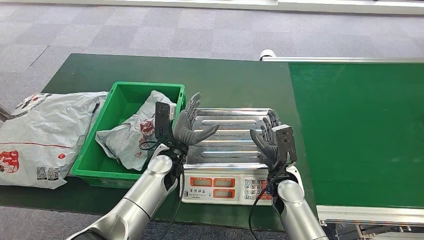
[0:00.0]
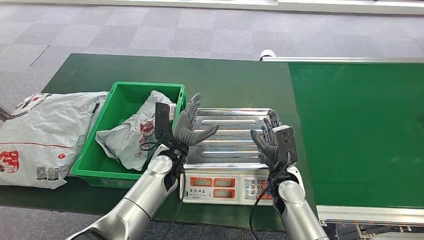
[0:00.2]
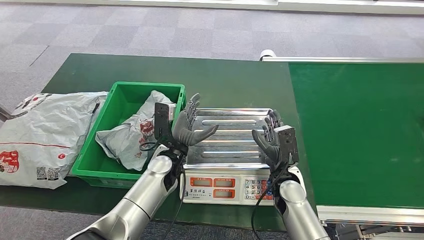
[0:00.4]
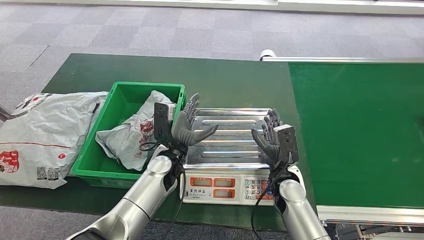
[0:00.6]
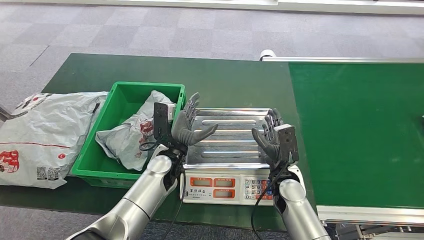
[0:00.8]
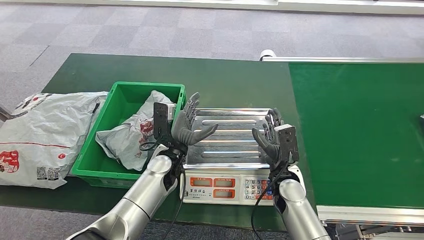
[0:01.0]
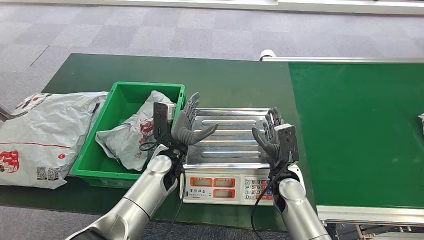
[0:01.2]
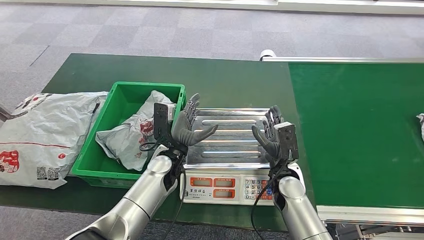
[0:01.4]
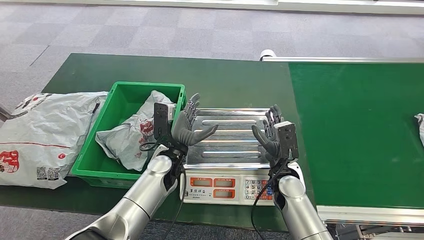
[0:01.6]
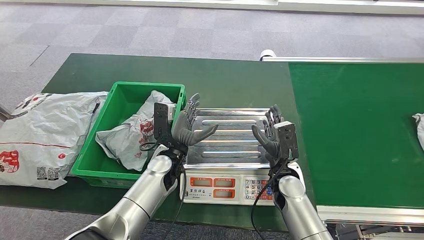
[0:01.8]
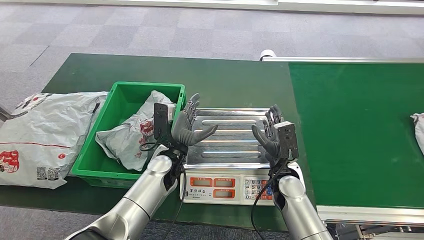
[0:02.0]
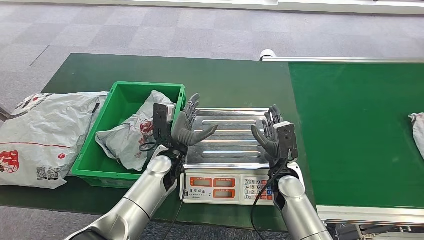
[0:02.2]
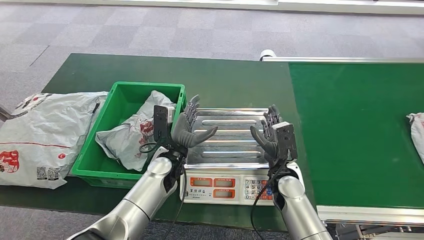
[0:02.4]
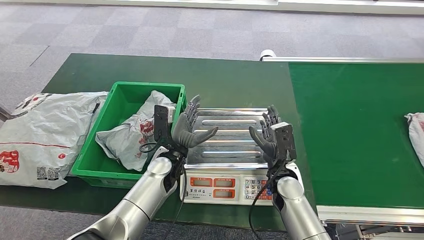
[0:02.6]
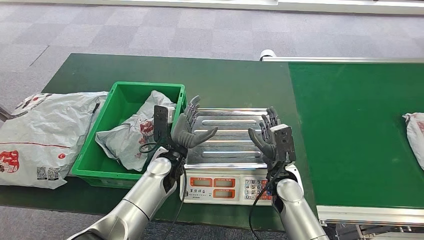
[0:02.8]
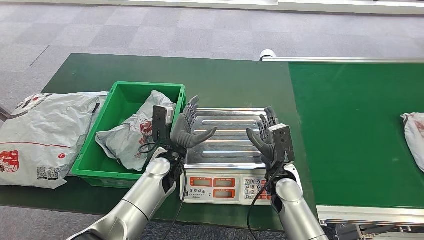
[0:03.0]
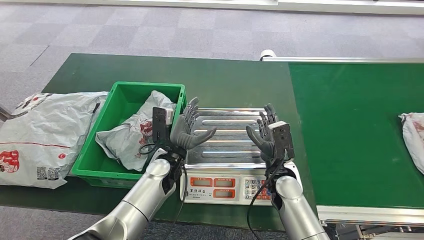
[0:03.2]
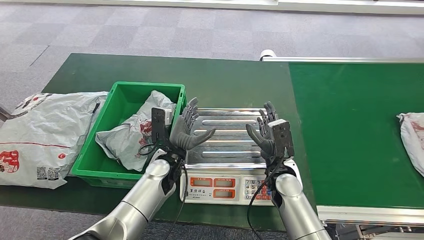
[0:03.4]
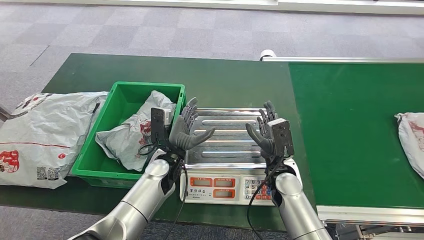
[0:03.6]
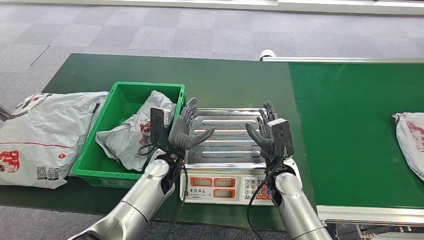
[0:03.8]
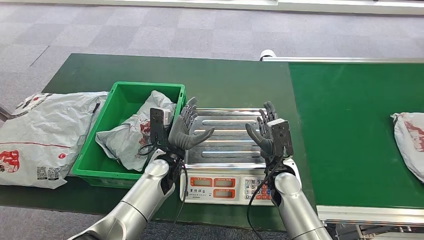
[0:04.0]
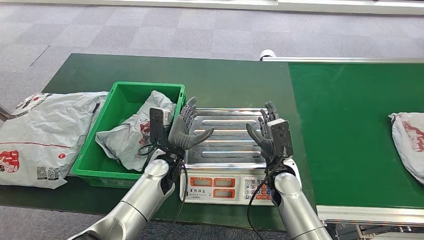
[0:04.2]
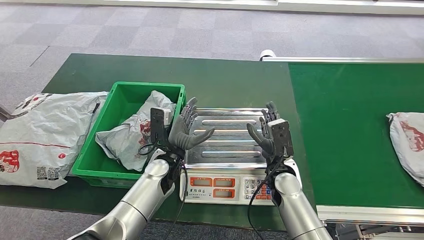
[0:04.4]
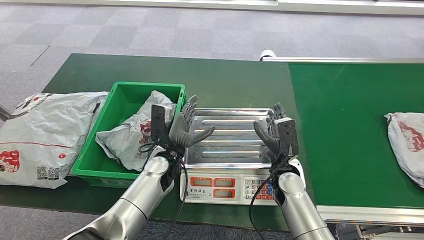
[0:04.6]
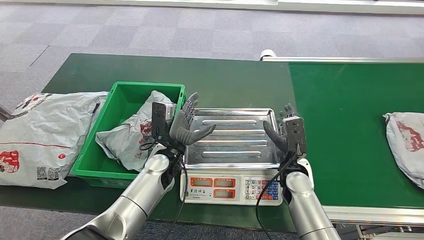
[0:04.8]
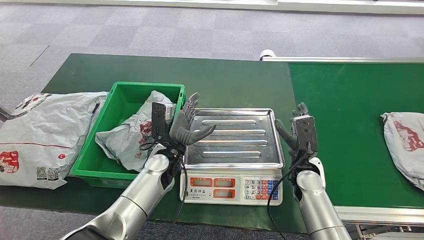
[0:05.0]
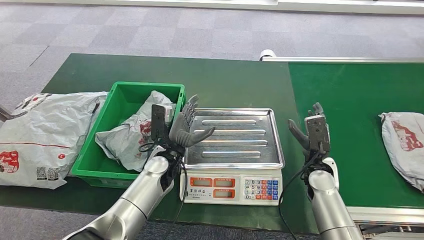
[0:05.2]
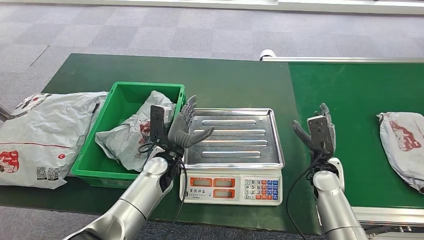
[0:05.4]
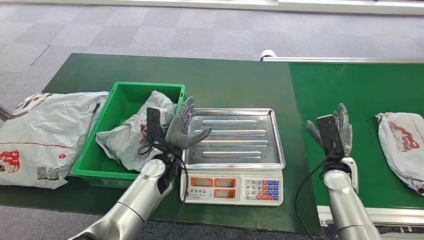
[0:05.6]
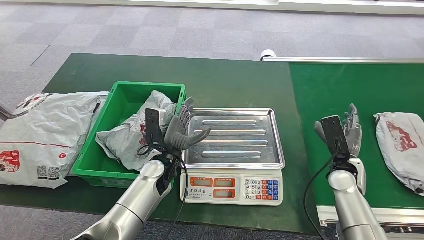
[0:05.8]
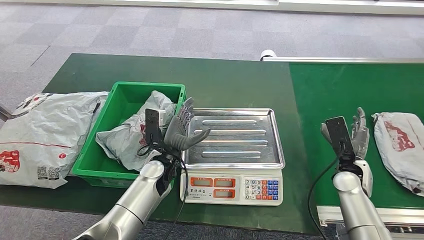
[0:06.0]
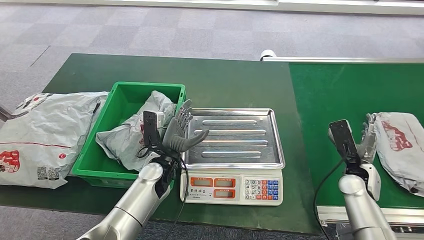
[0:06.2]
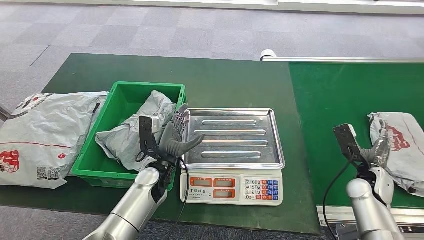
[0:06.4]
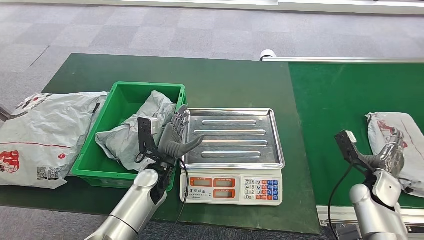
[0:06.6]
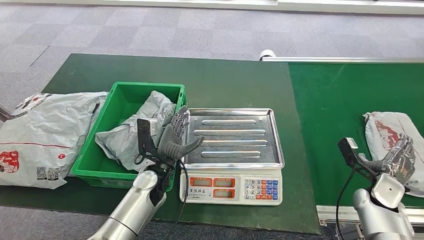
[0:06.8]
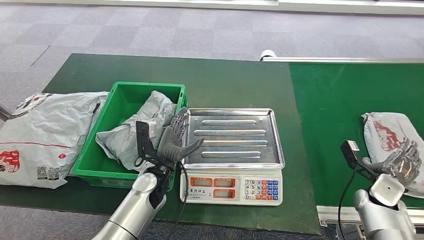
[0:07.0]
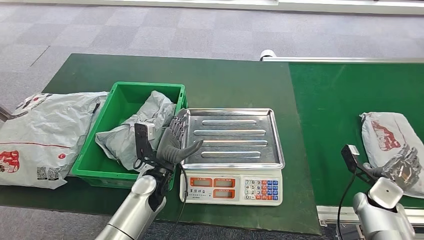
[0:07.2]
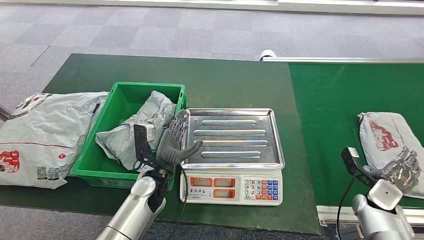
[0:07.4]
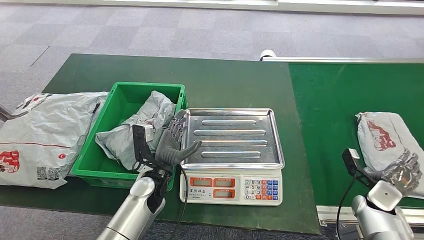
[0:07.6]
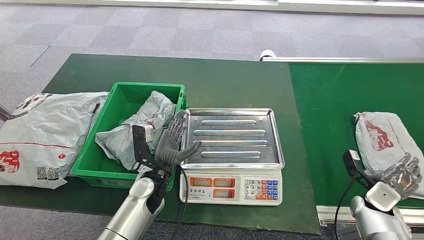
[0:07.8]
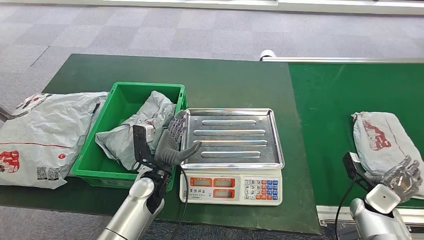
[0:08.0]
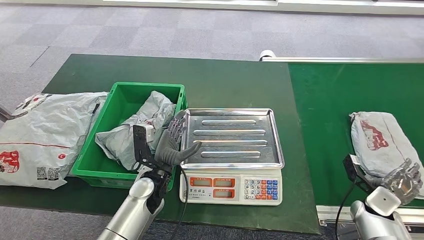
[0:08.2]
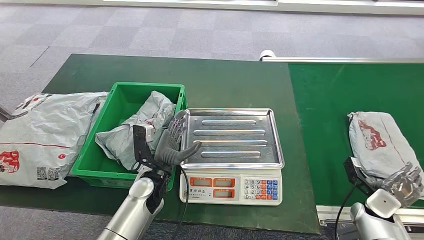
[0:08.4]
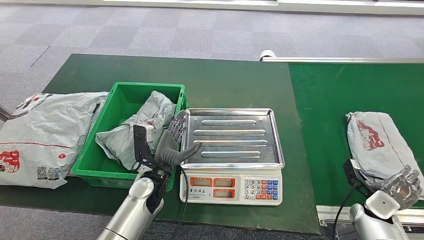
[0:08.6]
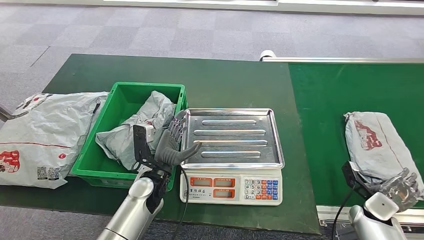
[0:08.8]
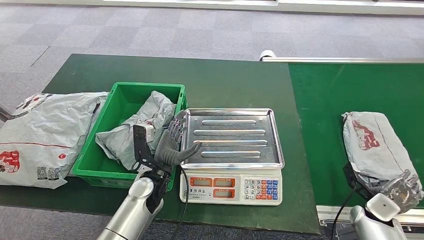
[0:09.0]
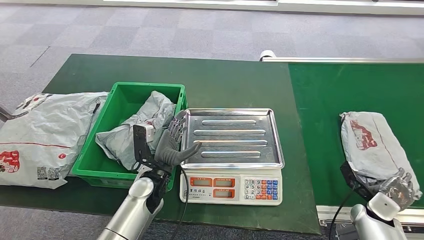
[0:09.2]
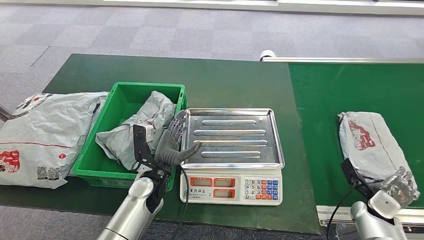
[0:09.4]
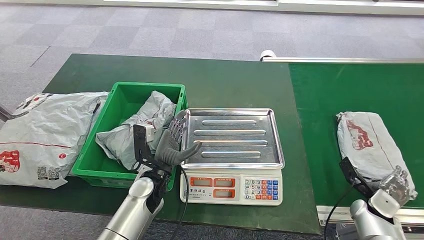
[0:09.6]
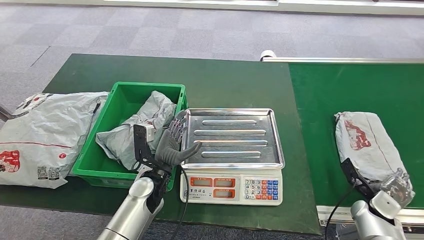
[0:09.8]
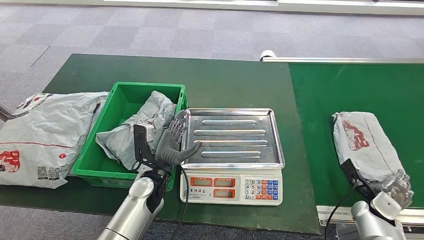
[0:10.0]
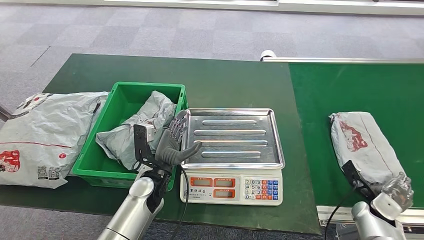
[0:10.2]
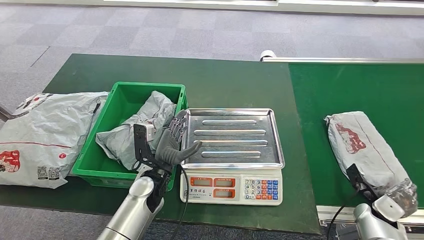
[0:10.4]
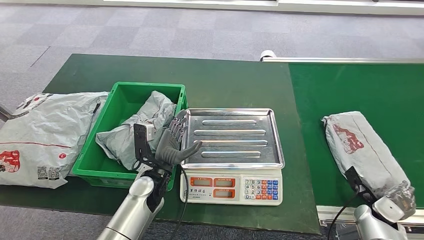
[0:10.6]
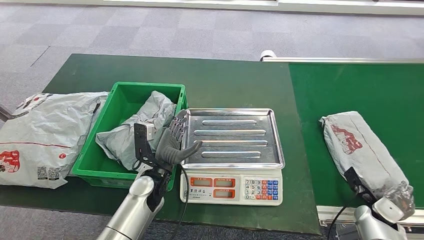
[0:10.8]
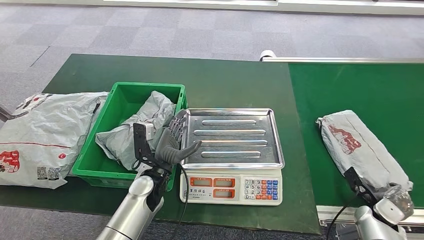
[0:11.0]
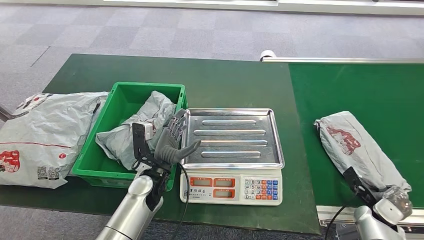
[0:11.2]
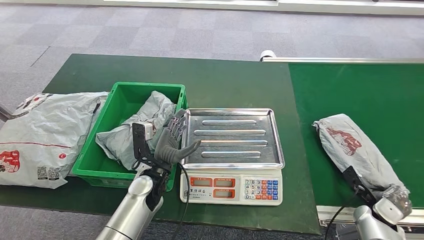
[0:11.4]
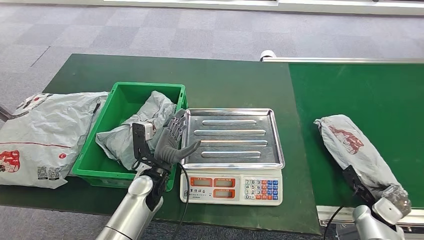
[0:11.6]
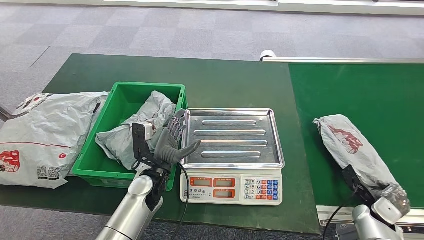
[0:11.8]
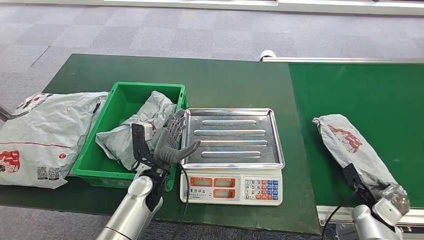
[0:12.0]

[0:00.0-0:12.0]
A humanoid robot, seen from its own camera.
0:00.0 to 0:03.0: Both hands stay about where they are.
0:03.0 to 0:04.4: The two hands keep their place.
0:04.4 to 0:06.0: The right hand shifts about 20 cm to the right.
0:06.0 to 0:07.6: The right hand goes some 10 cm to the right and downward.
0:07.6 to 0:10.4: The hands make only small movements.
0:10.4 to 0:12.0: The hands stay close to where they were, moving slightly.

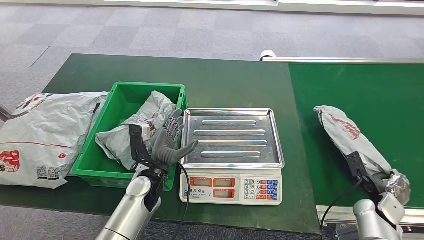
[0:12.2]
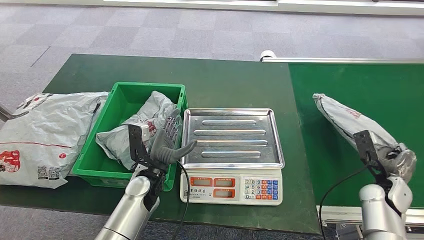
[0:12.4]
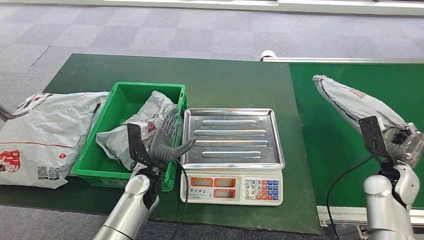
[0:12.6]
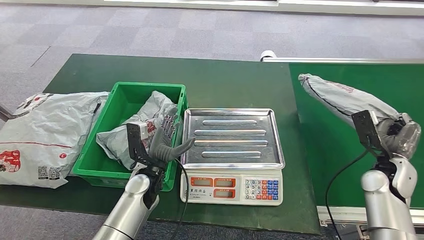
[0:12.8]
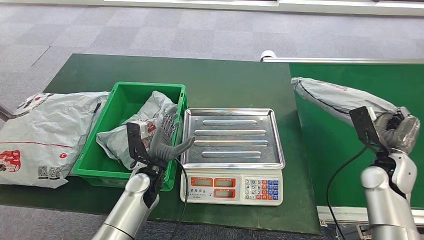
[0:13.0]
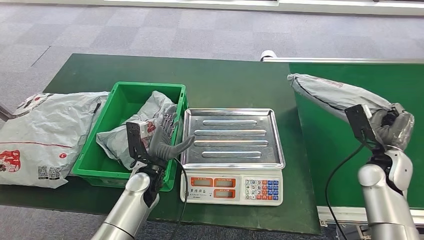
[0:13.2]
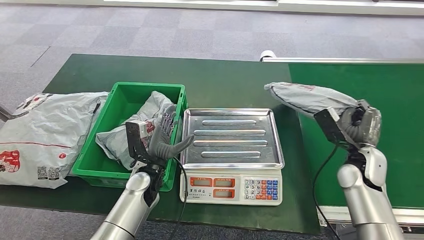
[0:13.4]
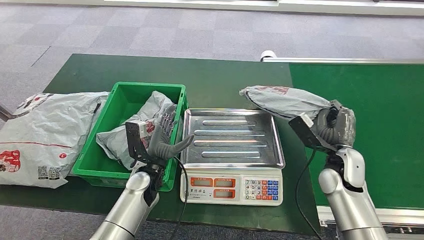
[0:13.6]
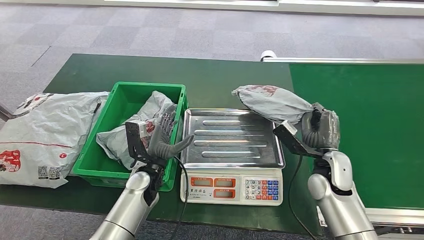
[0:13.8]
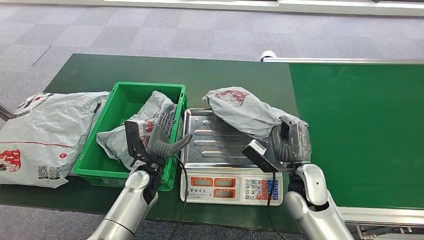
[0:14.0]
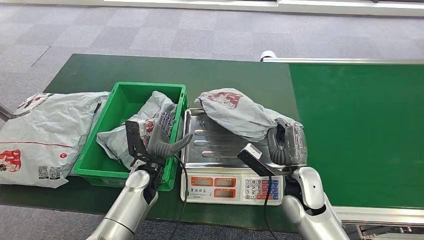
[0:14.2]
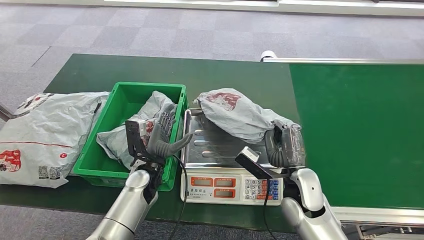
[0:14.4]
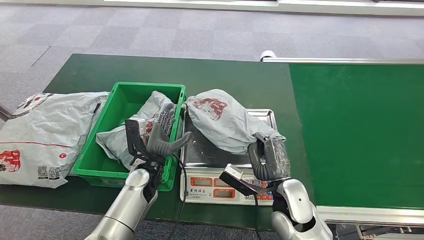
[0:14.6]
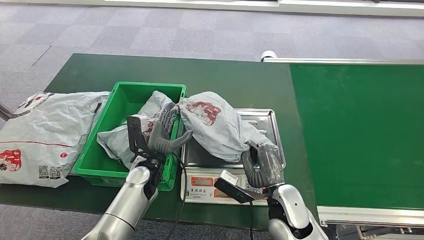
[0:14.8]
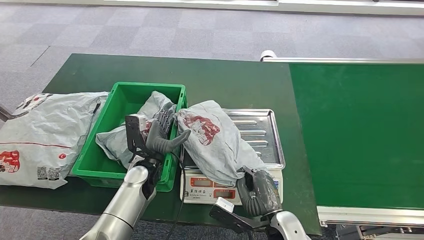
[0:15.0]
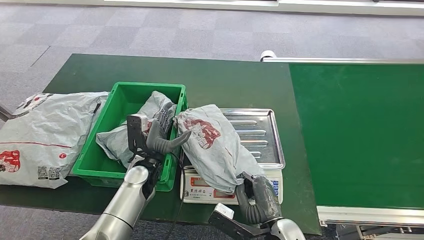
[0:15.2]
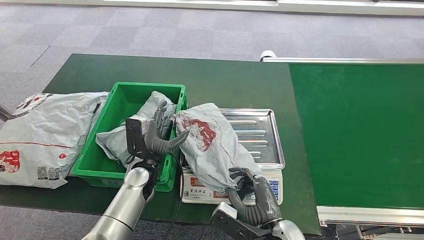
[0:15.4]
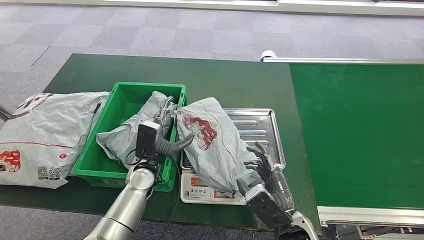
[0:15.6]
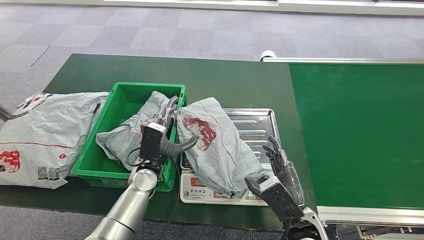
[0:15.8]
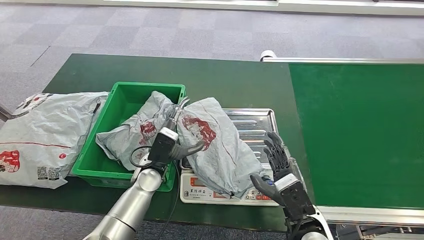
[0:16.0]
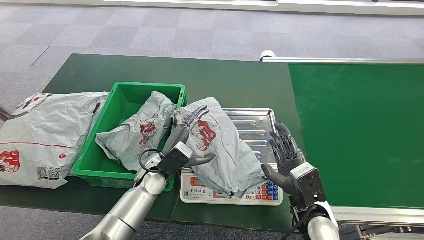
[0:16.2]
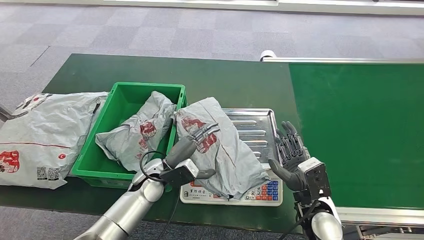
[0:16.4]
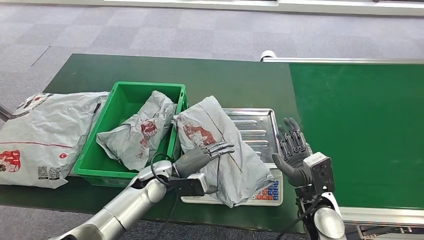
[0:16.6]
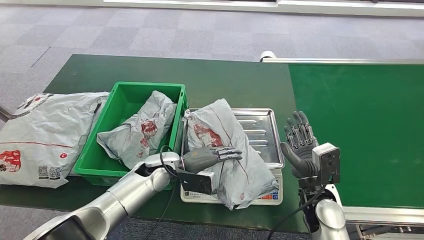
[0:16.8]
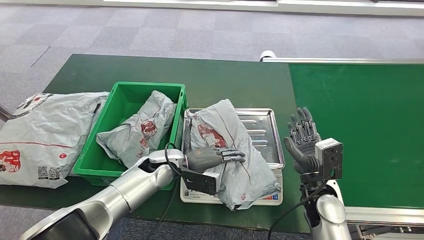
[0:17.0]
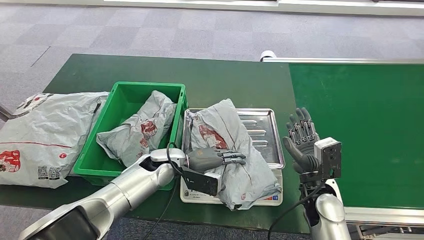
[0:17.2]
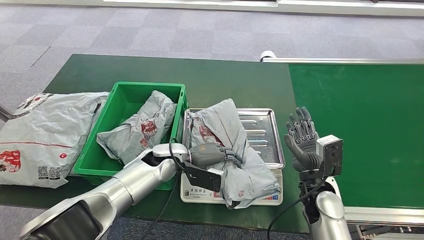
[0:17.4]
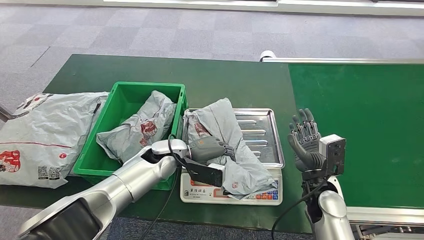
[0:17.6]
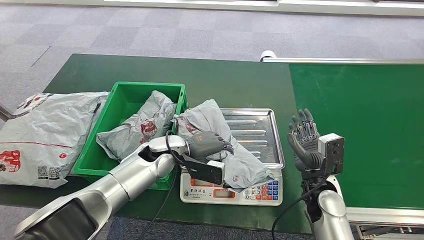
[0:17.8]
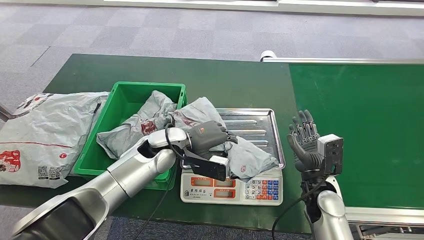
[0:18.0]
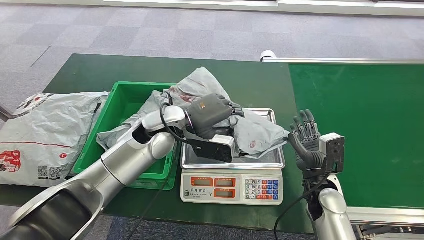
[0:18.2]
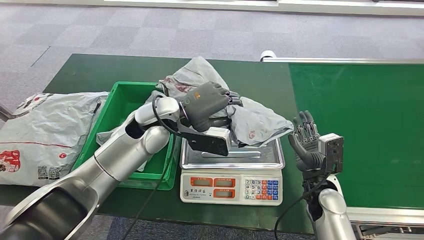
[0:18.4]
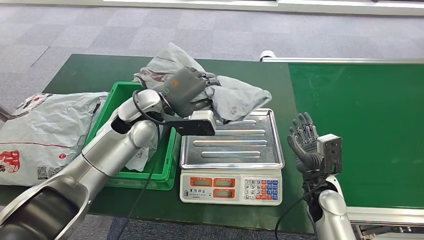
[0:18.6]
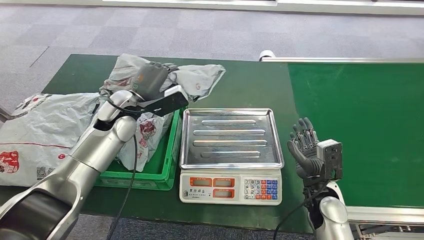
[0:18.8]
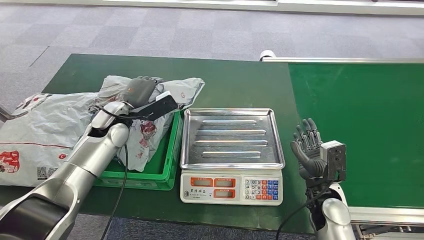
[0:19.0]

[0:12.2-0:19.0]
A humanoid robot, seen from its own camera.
Step, 0:13.0 to 0:16.2: Place the parcel onto the inbound machine.
0:12.2 to 0:13.6: The right hand moves to the left, upward and forward, approximately 20 cm.
0:15.0 to 0:16.2: The right hand is displaced to the right by about 5 cm.
0:16.2 to 0:17.6: The left hand ends up about 5 cm from where it was; the right hand heads forward, covering about 5 cm.
